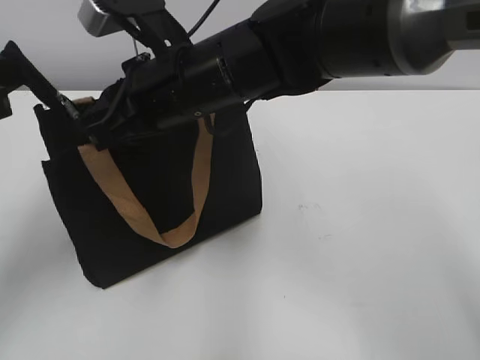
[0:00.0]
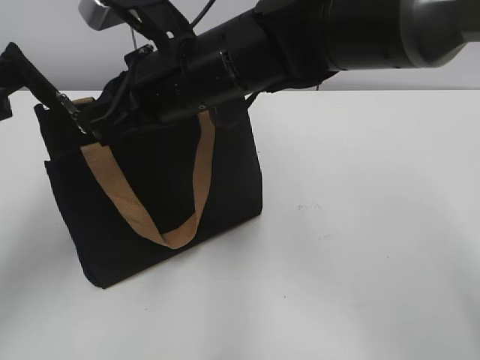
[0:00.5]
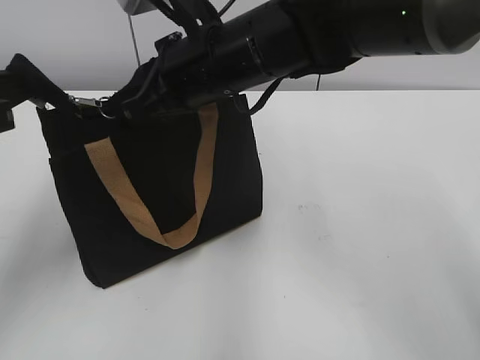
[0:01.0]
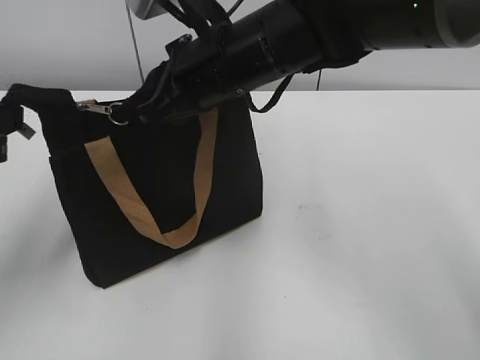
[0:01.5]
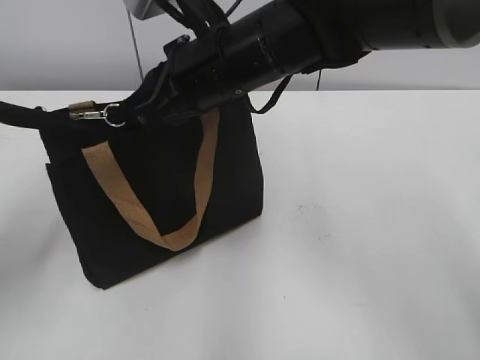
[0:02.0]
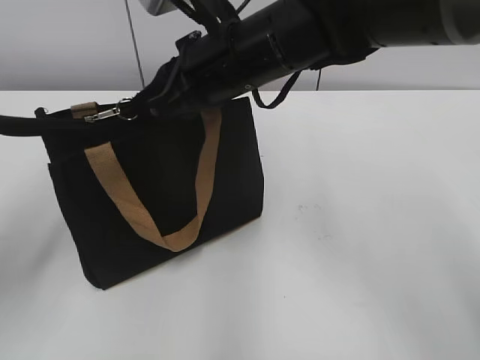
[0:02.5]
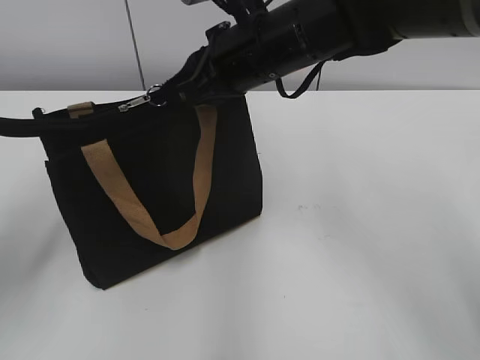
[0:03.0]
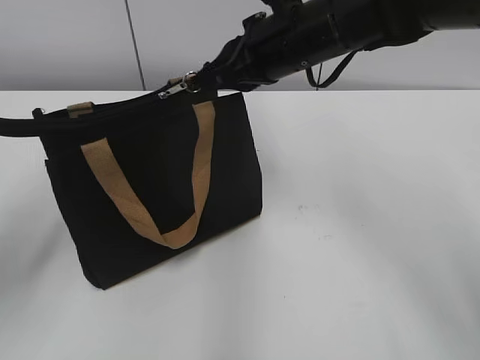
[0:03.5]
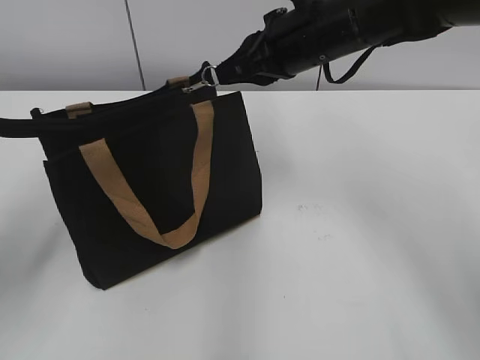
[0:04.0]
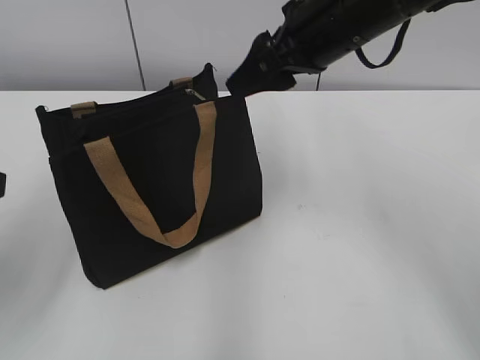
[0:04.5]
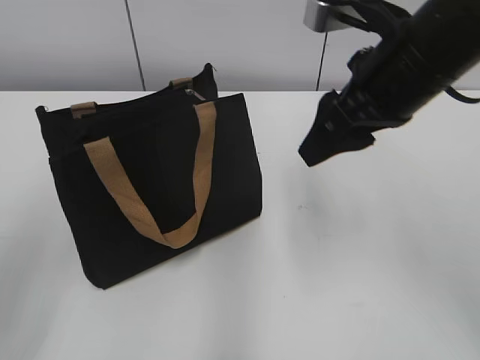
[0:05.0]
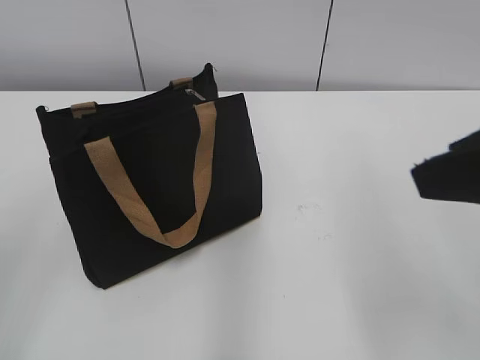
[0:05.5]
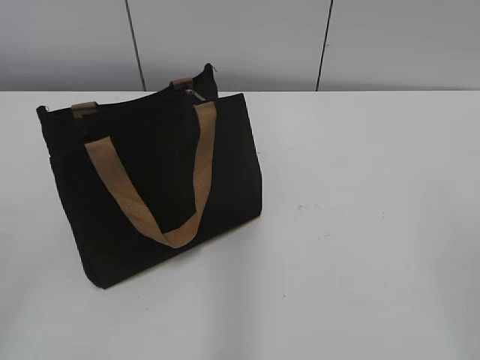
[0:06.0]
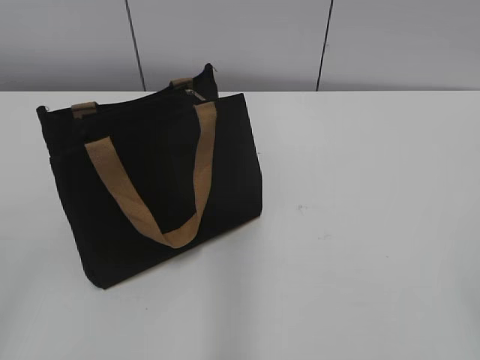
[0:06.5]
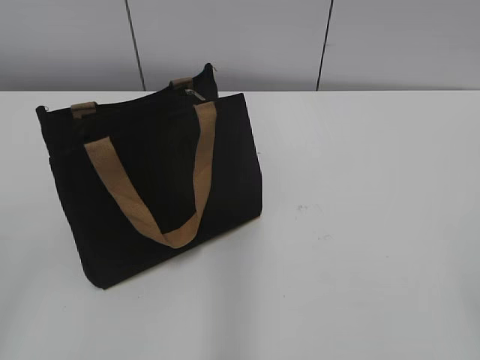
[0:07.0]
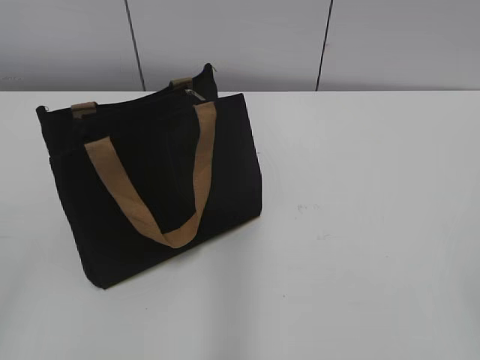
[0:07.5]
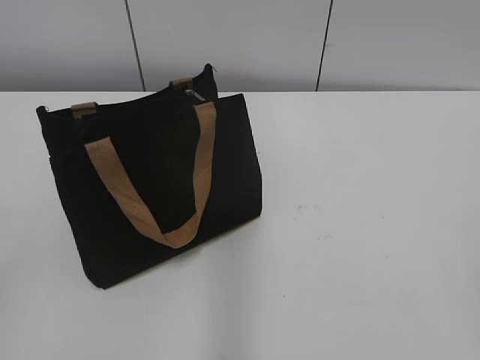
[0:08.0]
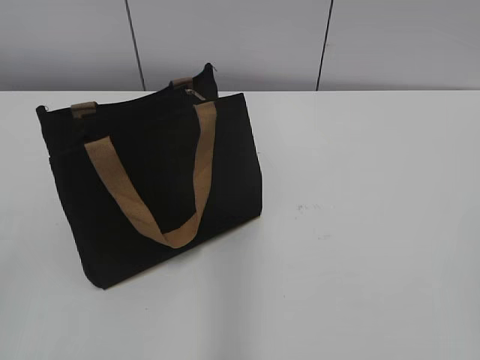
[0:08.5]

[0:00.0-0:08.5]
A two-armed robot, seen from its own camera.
Step, 0:00.0 to 0:04.0: Zip up the bag with your right hand.
0:00.0 to 0:02.0: The grippers move only a little.
0:02.0 to 0:04.0: The right gripper moves to the right and forward, approximately 10 cm.
0:04.0 to 0:06.5: The right gripper travels backward and to the right by some 40 cm, and opens up; the left gripper moves backward, some 15 cm, and opens.

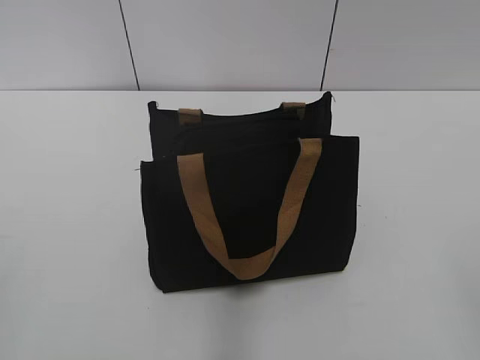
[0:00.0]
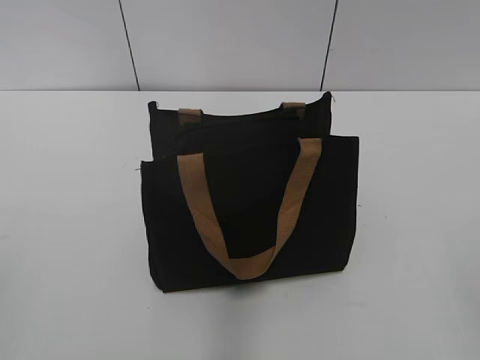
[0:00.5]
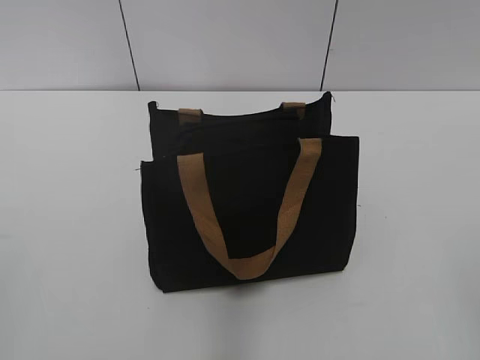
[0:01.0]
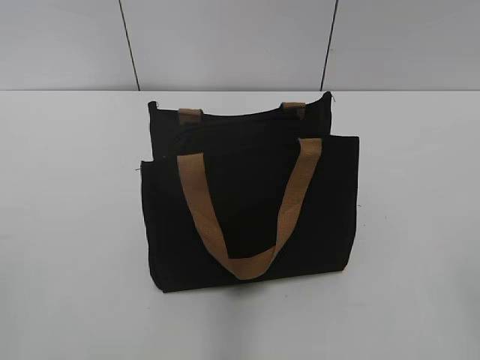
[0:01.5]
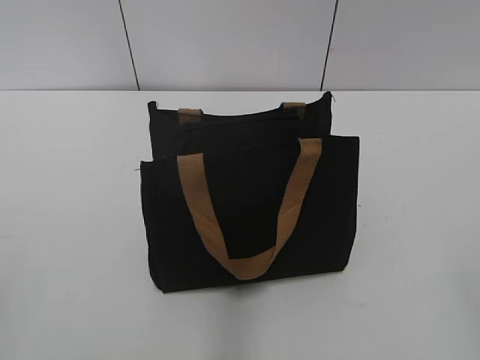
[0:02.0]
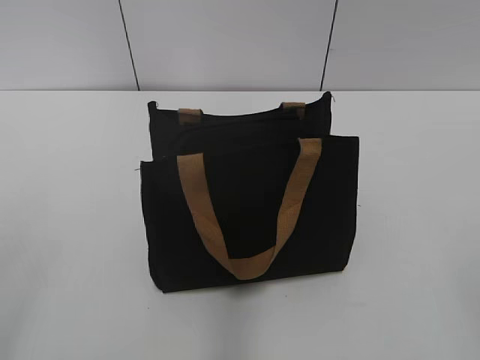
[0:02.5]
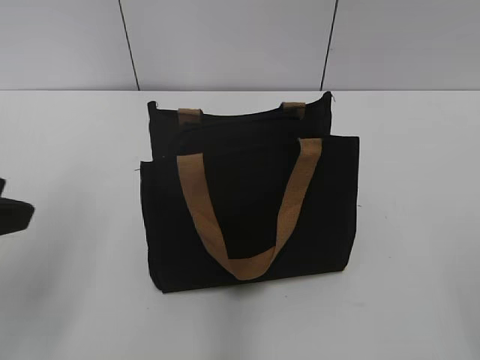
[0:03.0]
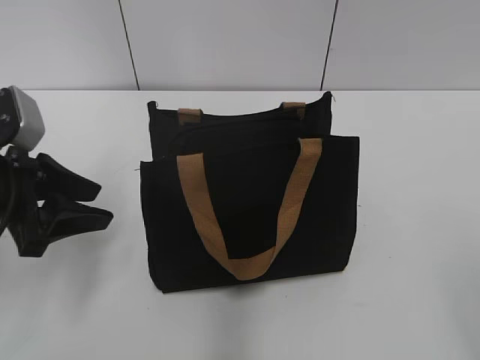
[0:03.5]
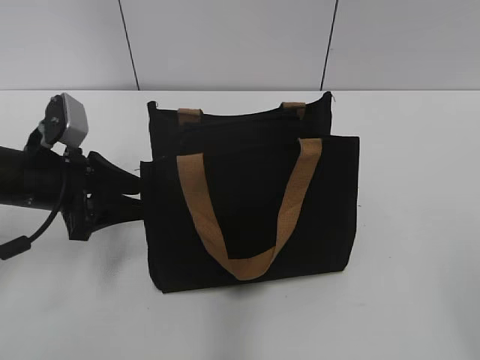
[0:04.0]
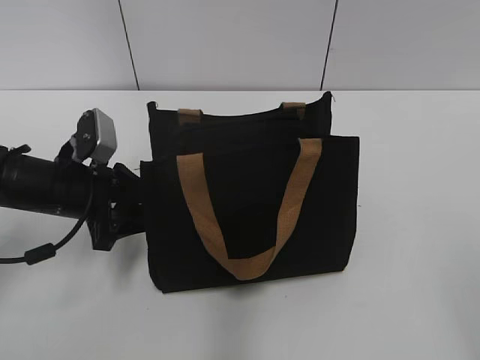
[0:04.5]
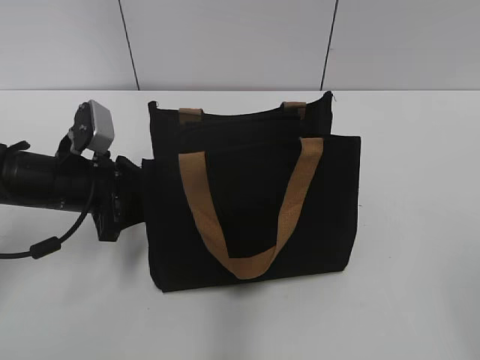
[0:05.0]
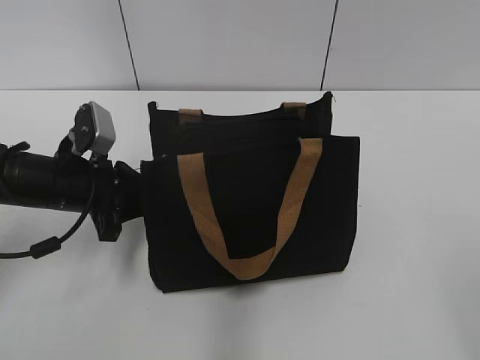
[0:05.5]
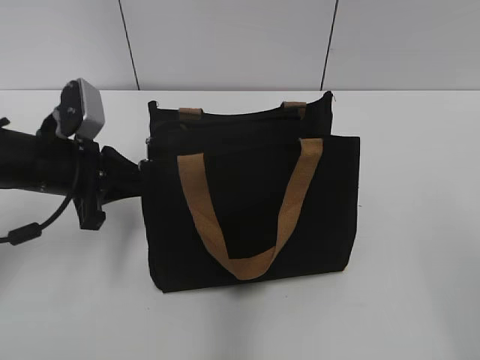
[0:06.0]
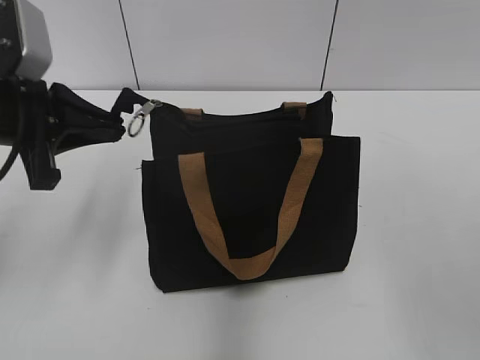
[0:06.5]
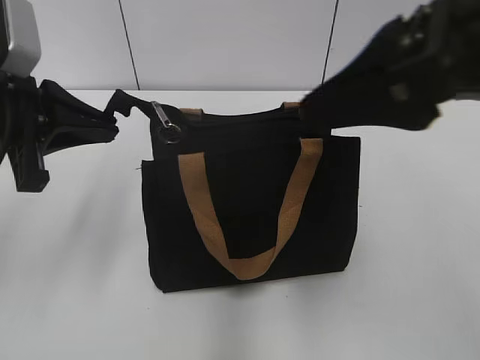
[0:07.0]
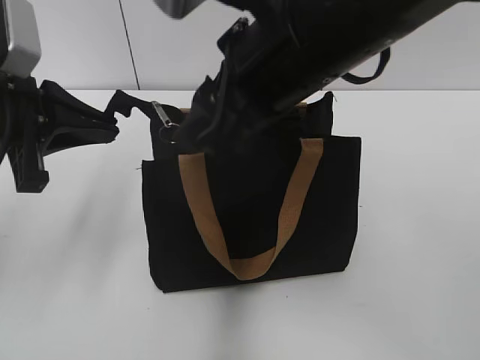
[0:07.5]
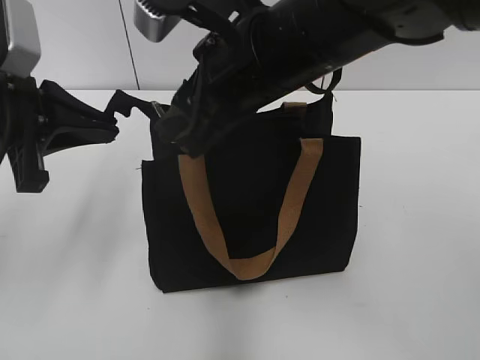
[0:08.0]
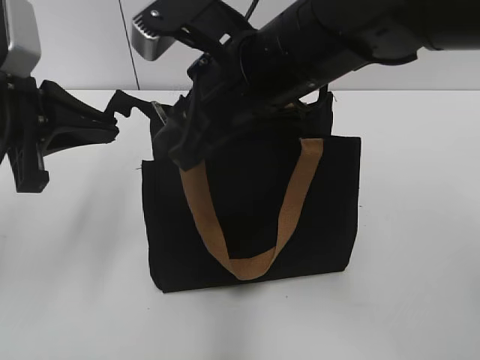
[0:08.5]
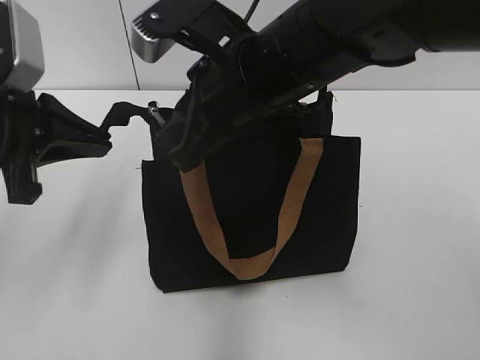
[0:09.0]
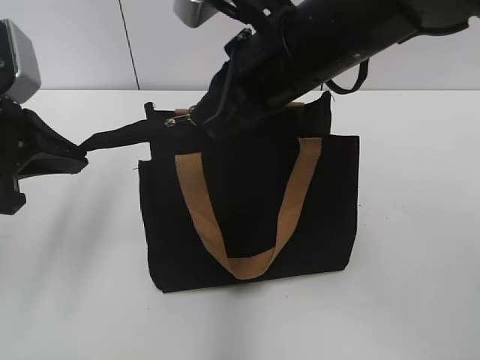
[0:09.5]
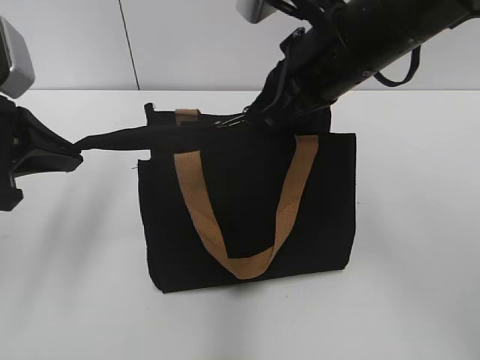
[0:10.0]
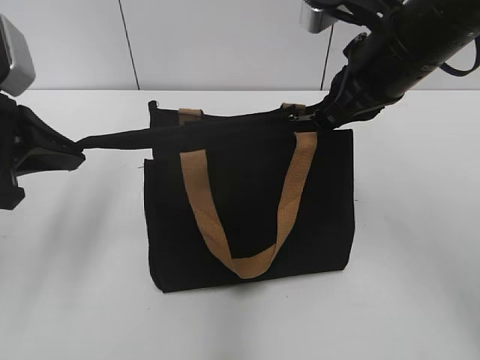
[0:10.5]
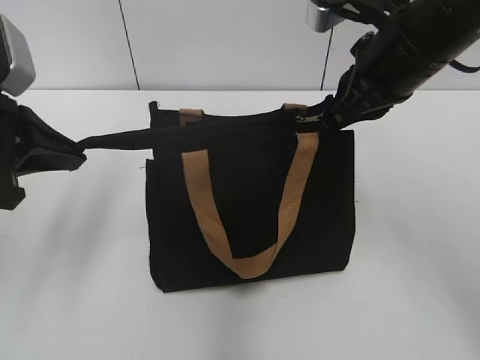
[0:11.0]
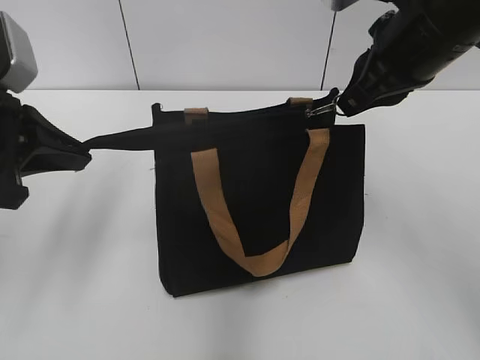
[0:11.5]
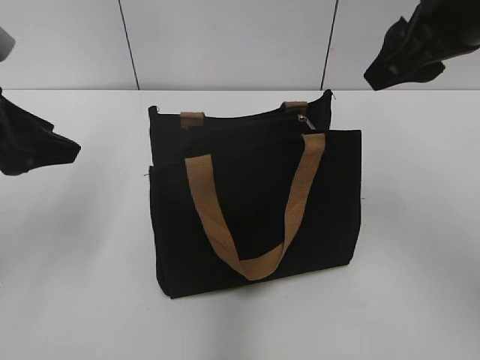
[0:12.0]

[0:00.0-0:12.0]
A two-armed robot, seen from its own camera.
Step, 0:00.0 to 0:11.5: Zip up the bag with your right hand.
0:02.0 to 0:04.0: The left gripper travels forward and downward by roughly 35 cm, and opens its fingers.
0:04.0 to 0:06.0: The left gripper closes.
0:06.0 to 0:08.0: The right gripper moves forward and to the left, roughly 35 cm, while the left gripper moves upward, approximately 10 cm.
0:08.0 to 0:10.0: The right gripper goes roughly 5 cm to the right, and closes up.
0:10.0 to 0:12.0: The right gripper shifts some 10 cm to the right, and opens; the left gripper opens up.

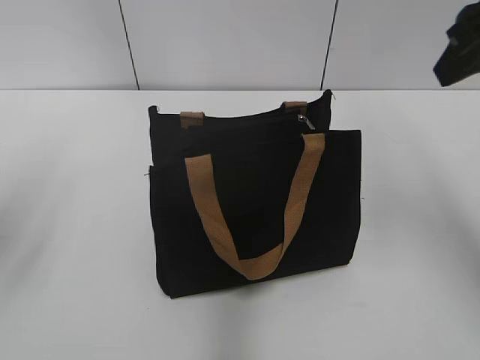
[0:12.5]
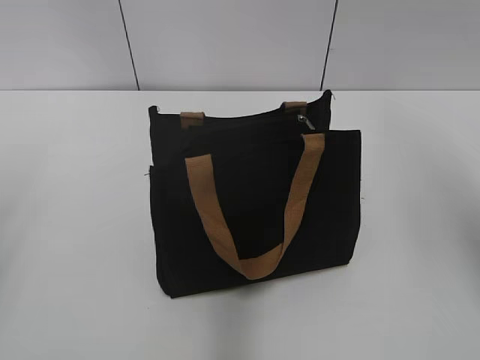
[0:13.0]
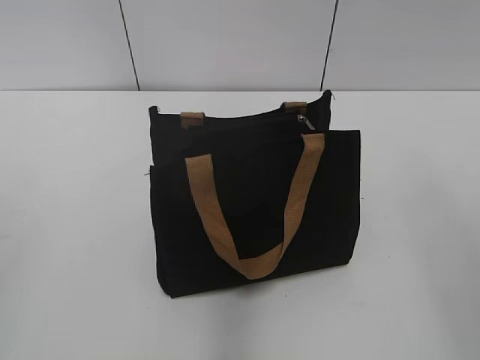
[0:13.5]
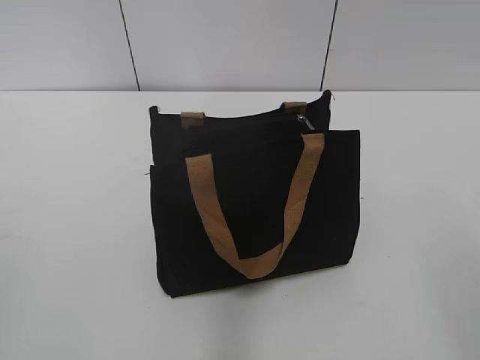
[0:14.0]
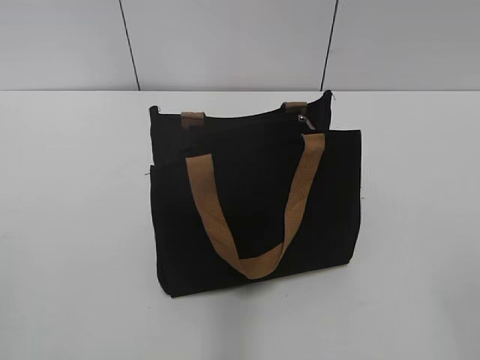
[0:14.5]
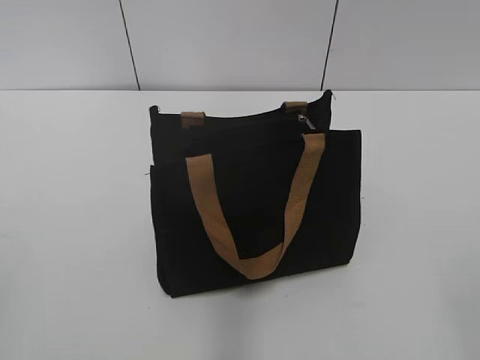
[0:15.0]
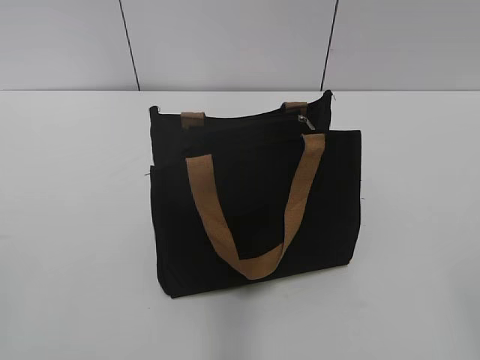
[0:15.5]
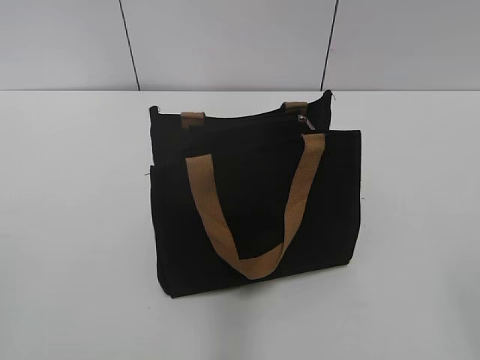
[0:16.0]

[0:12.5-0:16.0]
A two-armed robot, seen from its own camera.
0:12.5 to 0:14.5: Both grippers travel together backward, some 25 cm.

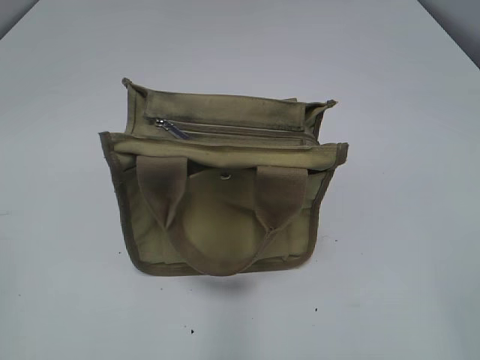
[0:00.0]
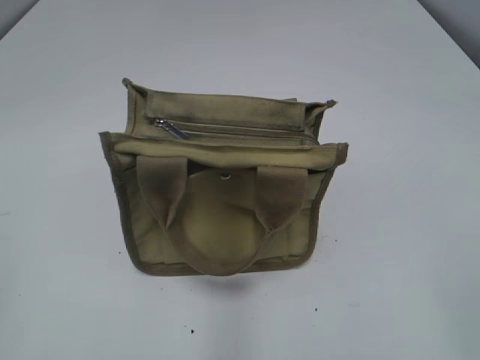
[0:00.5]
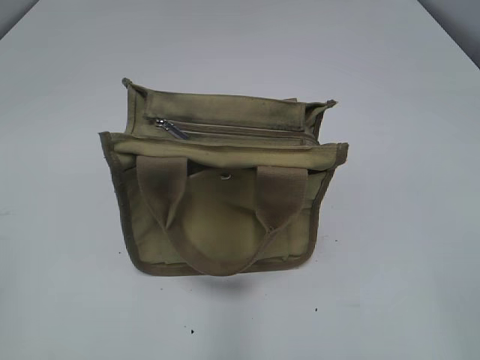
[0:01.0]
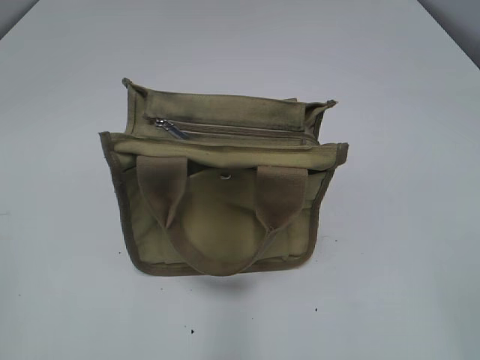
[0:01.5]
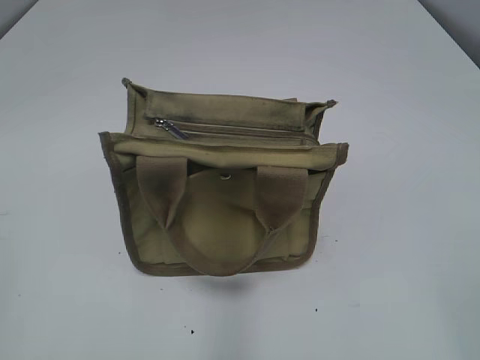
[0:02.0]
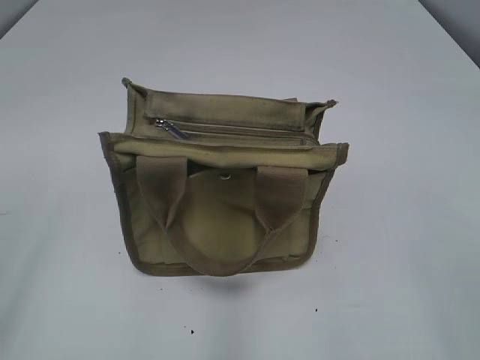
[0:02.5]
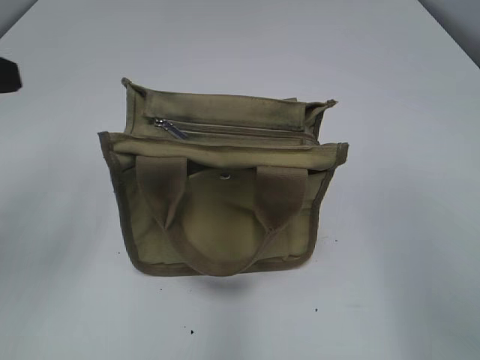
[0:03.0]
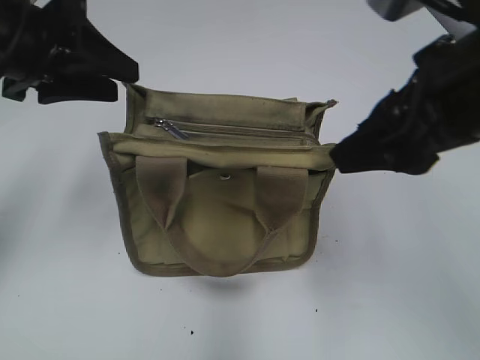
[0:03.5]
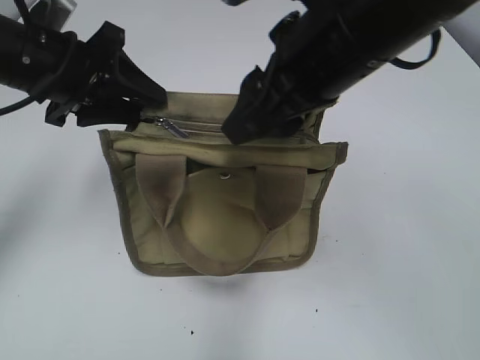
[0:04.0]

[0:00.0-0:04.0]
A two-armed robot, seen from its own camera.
0:02.0 to 0:04.0: The left gripper is displaced forward by about 30 cm, while the right gripper moves forward and to the left, approximately 35 cm.
